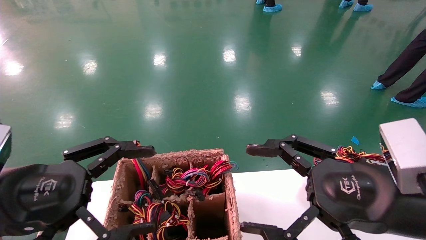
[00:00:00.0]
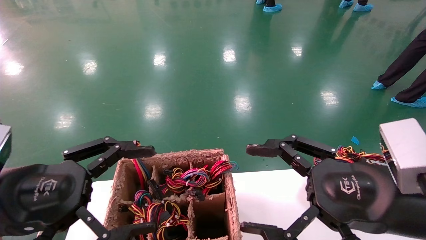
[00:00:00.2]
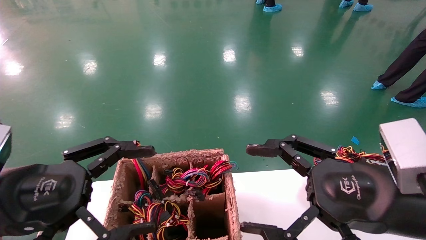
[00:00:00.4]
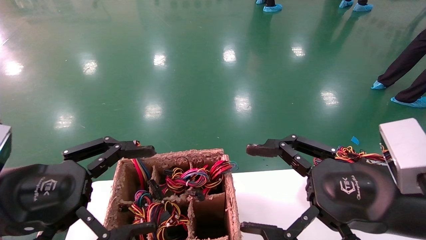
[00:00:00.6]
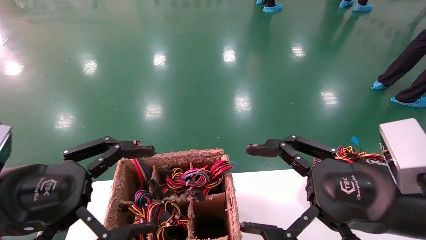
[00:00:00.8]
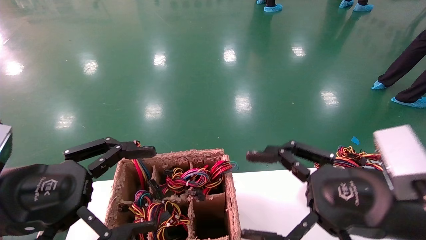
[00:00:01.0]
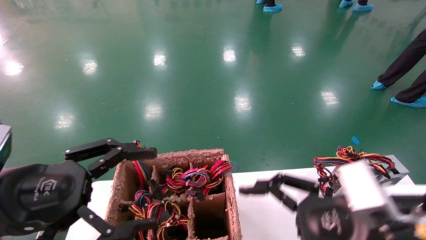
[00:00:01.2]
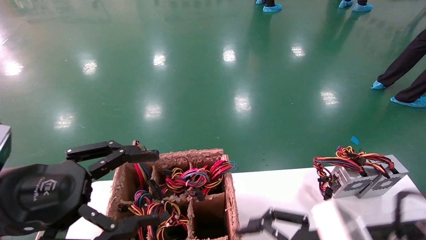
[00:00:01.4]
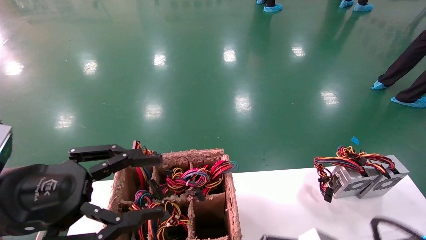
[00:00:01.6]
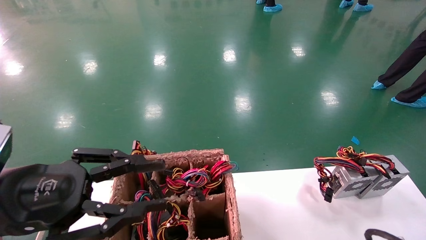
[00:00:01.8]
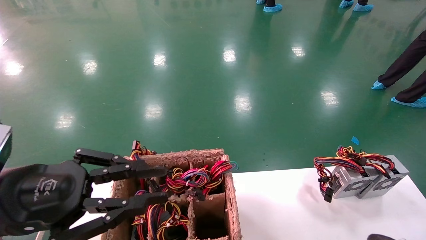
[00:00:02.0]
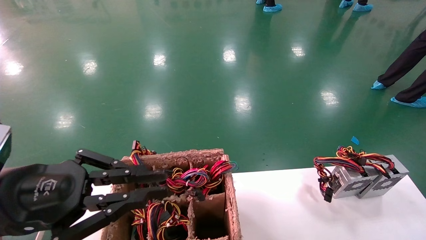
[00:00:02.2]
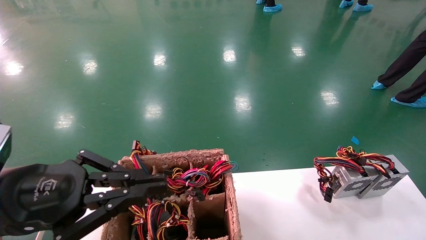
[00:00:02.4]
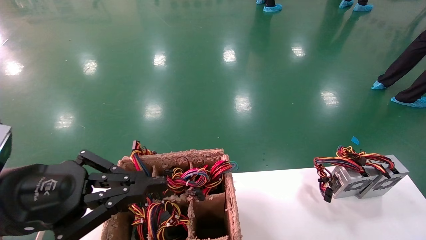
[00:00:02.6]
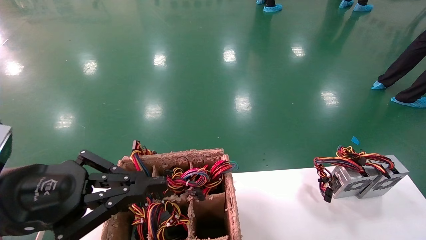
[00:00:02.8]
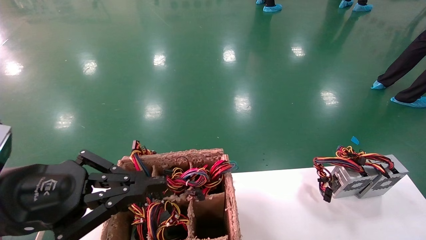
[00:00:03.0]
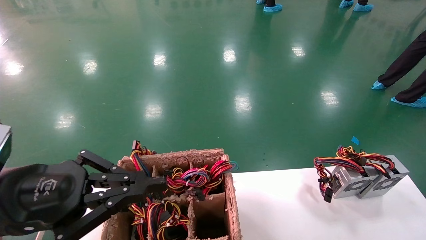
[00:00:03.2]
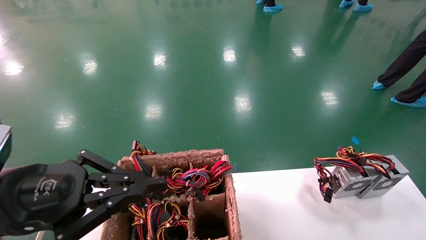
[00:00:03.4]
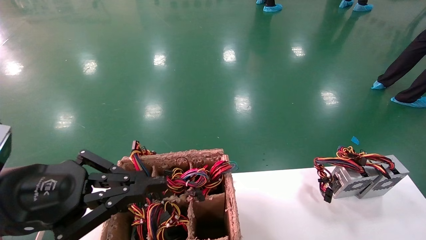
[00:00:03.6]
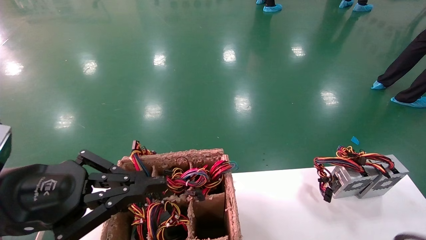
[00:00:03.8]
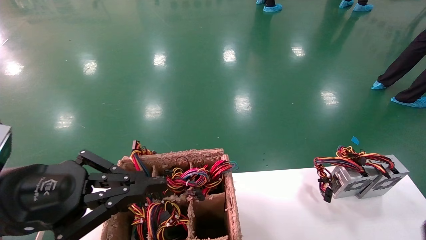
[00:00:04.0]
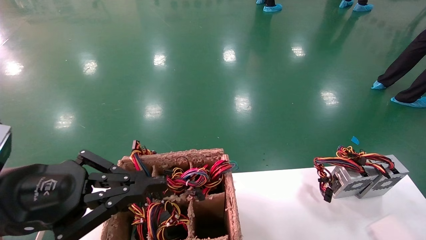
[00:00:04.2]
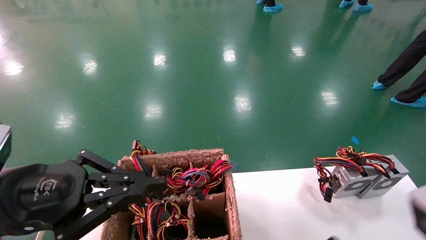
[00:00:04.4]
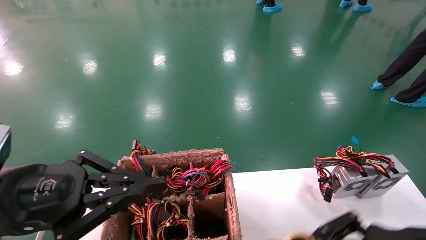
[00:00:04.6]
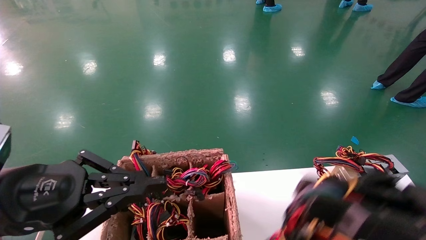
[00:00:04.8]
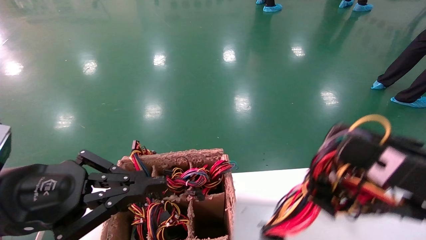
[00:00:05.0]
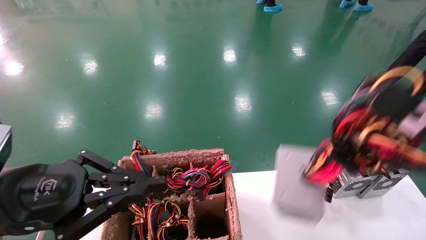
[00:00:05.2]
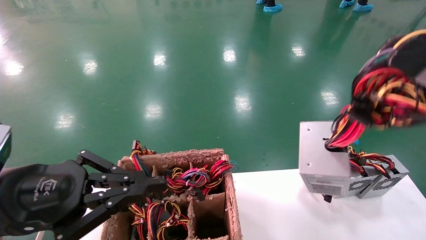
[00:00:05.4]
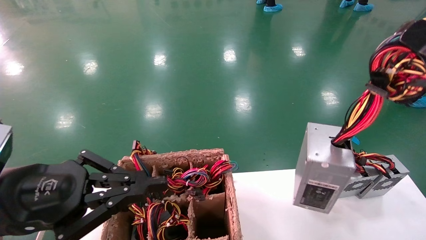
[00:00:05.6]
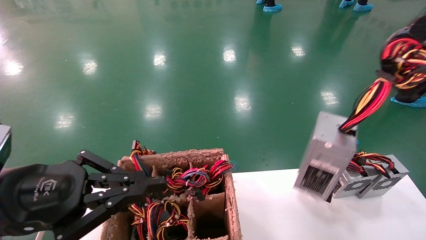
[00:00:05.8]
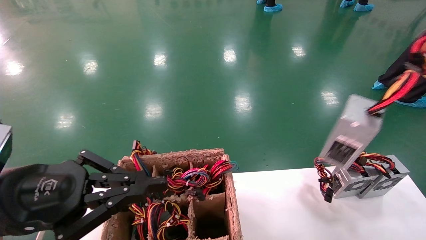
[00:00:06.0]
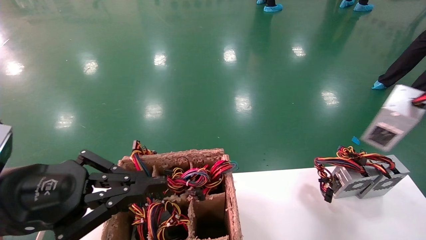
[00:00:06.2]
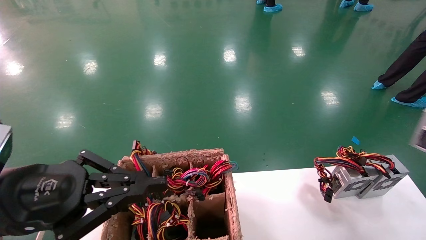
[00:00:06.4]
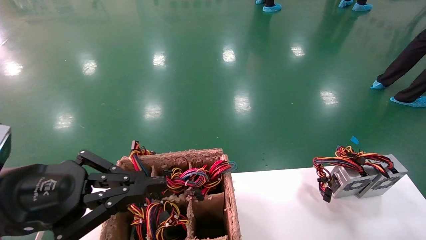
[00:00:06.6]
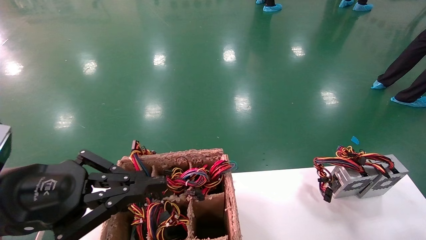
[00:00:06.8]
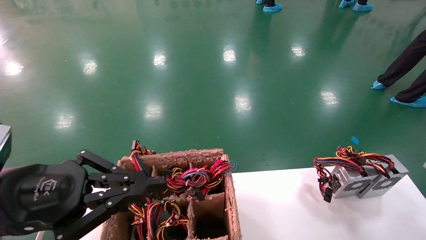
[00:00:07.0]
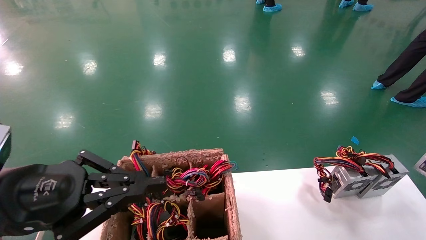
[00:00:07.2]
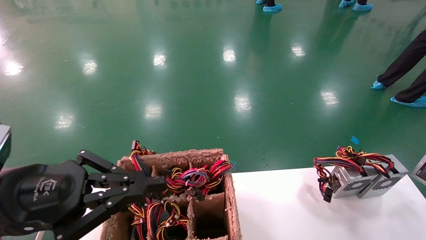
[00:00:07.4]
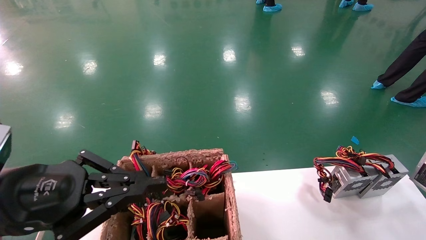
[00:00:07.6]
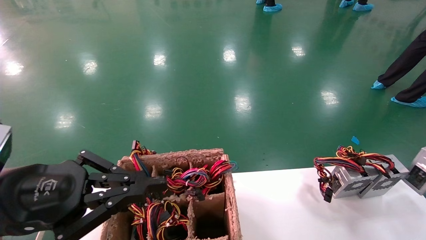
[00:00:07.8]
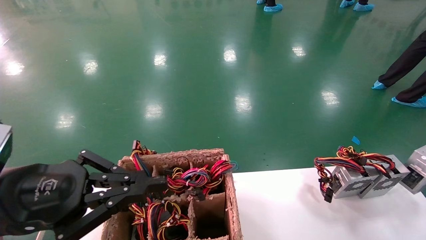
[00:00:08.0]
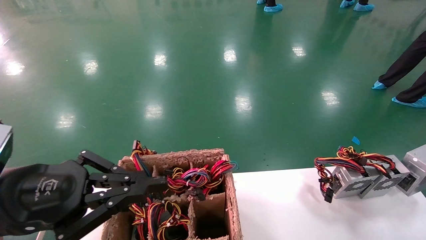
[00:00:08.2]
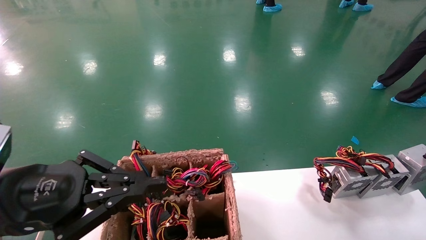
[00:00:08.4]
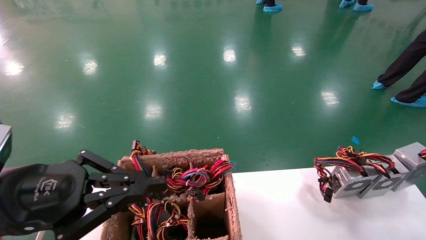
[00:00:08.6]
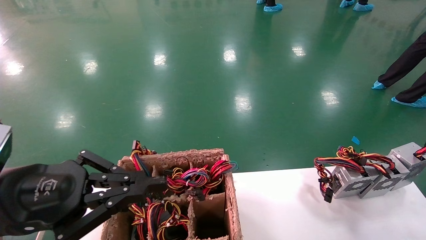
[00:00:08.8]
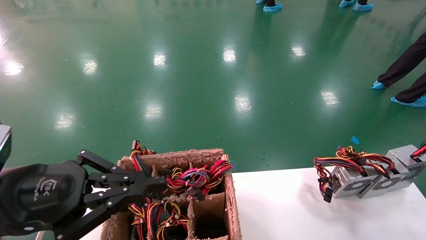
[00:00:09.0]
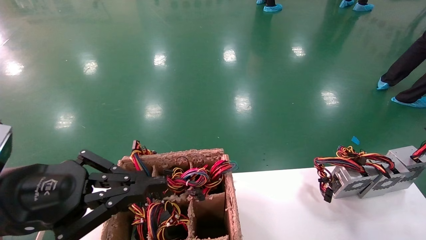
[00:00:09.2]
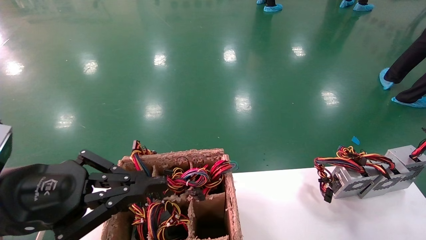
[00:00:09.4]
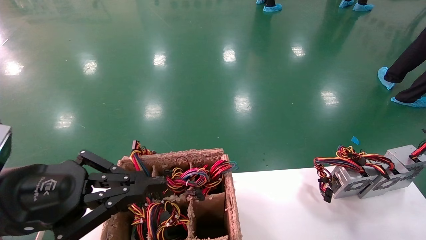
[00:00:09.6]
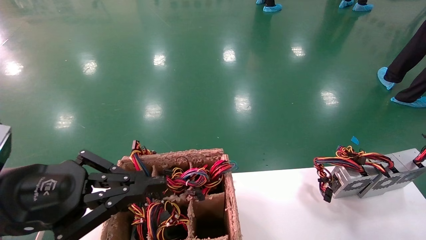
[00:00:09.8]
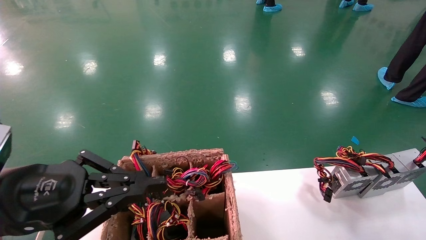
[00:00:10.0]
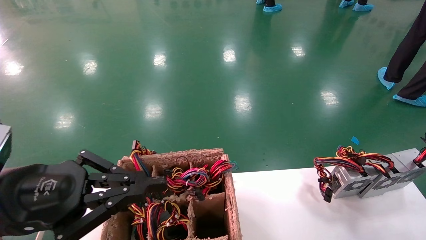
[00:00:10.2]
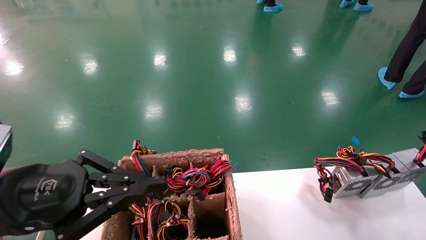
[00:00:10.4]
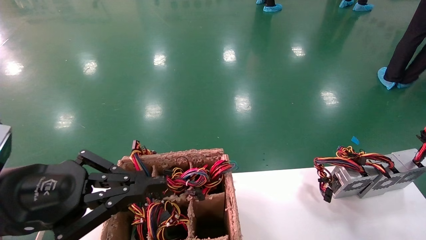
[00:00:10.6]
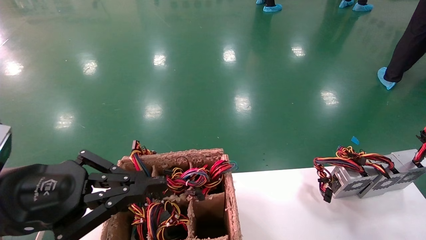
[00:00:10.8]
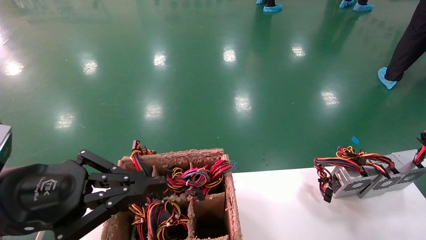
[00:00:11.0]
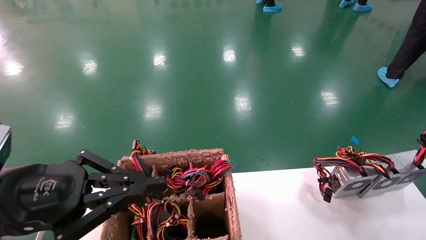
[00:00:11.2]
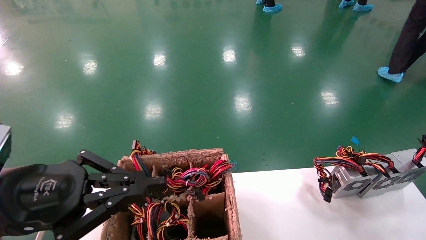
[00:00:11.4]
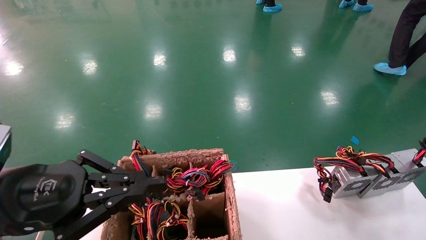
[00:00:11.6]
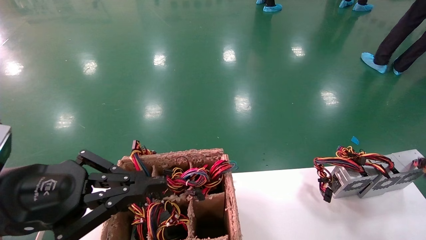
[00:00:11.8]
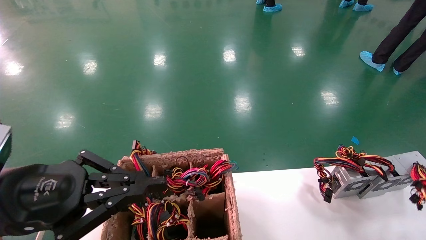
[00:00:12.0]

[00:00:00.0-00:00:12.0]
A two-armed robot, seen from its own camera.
Step, 00:00:01.2 to 00:00:03.4: Grab the main unit power supply from the containment box.
Step, 00:00:03.6 to 00:00:12.0: Place the main unit power supply in the designated area.
00:00:00.0 to 00:00:01.6: The right gripper heads downward, covering approximately 10 cm.
00:00:01.6 to 00:00:03.0: The left gripper closes up; the right gripper closes up.
00:00:03.0 to 00:00:04.4: The right gripper travels upward by roughly 5 cm.
00:00:04.4 to 00:00:06.0: The right gripper is displaced to the right and upward by roughly 25 cm.
00:00:06.0 to 00:00:07.6: The right gripper shifts approximately 15 cm to the right and downward.
00:00:07.6 to 00:00:09.0: The right gripper travels forward and downward by roughly 10 cm.
00:00:09.0 to 00:00:10.4: The grippers stay close to where they were, moving slightly.
00:00:10.4 to 00:00:12.0: The right gripper opens.

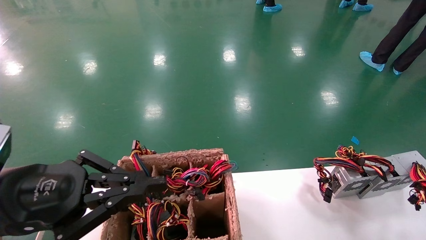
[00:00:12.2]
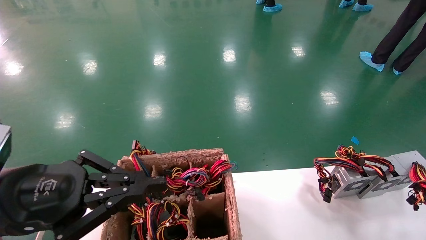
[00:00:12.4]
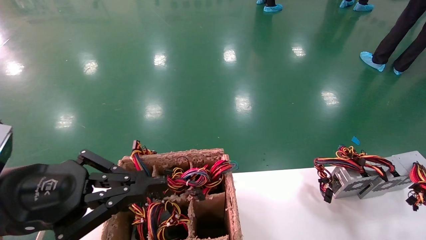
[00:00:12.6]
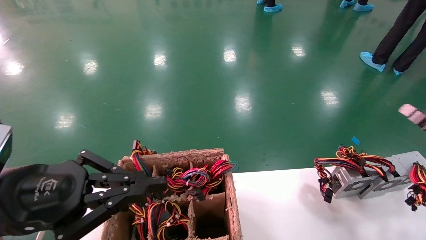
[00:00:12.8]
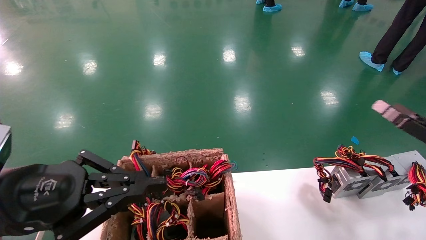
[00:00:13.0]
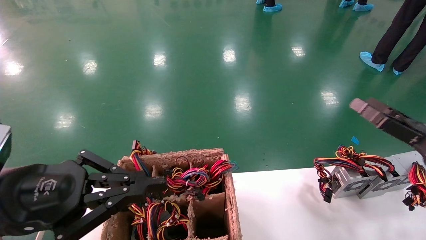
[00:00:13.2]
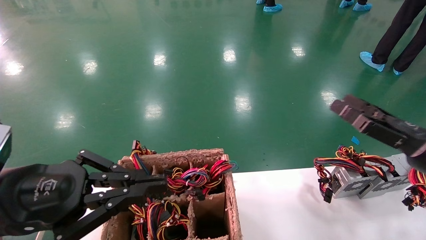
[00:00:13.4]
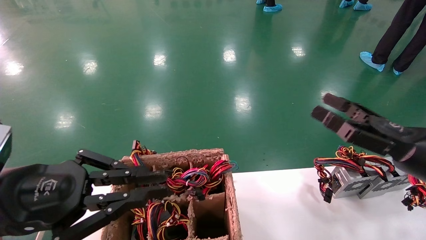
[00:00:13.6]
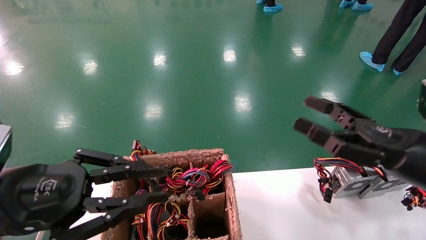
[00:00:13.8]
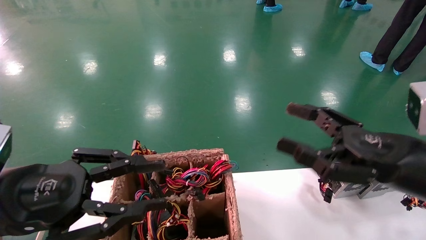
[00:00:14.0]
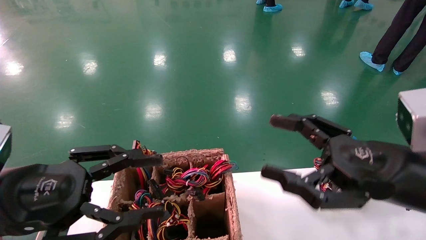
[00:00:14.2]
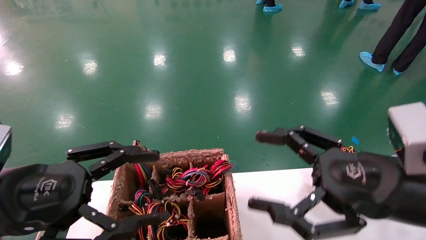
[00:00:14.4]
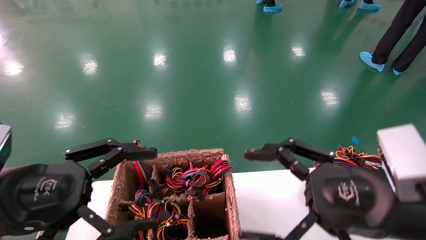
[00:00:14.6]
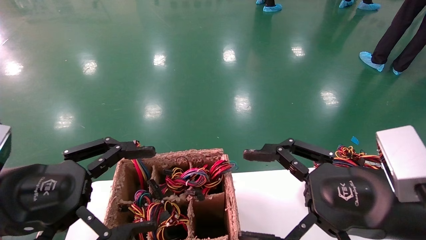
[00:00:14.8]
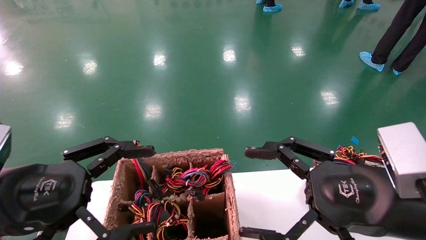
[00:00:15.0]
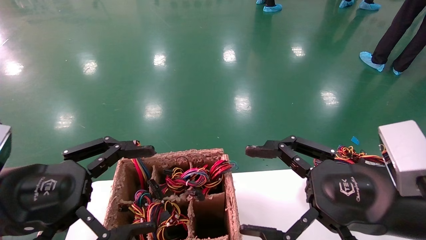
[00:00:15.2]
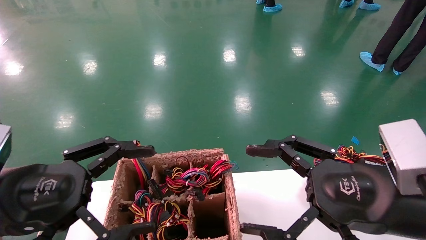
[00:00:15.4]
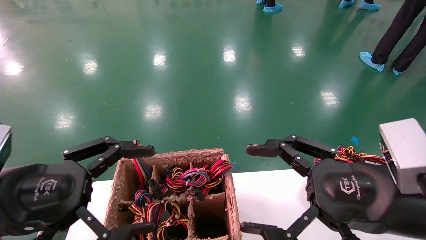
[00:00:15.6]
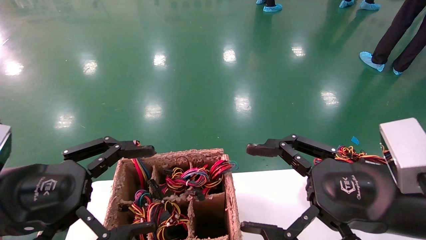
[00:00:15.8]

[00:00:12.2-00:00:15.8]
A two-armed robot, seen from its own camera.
00:00:12.2 to 00:00:14.0: The right gripper heads to the left, covering about 30 cm.
00:00:14.0 to 00:00:15.8: The right gripper goes approximately 5 cm to the left, while the left gripper opens its fingers.
